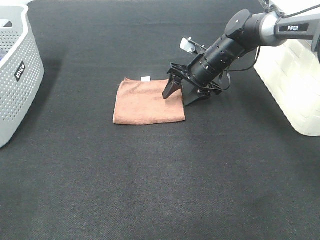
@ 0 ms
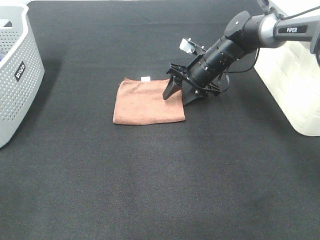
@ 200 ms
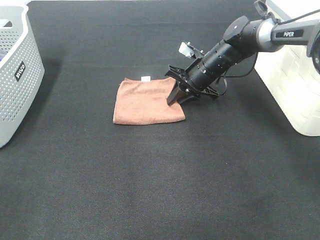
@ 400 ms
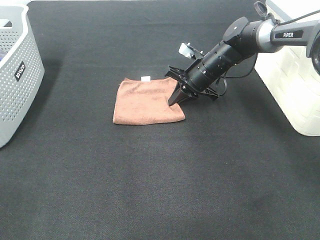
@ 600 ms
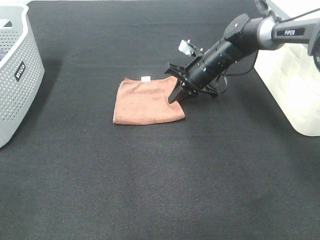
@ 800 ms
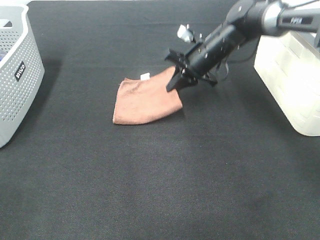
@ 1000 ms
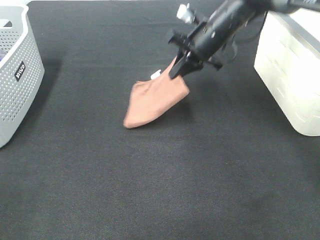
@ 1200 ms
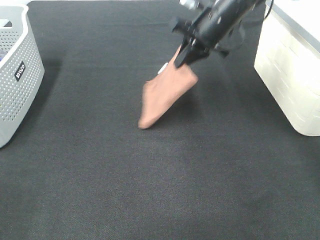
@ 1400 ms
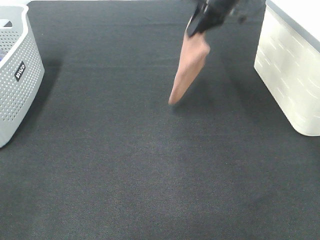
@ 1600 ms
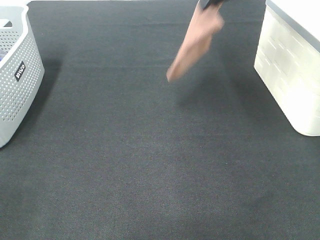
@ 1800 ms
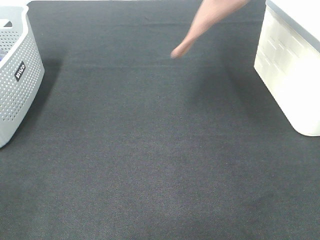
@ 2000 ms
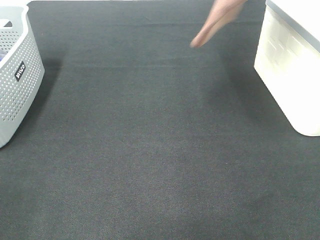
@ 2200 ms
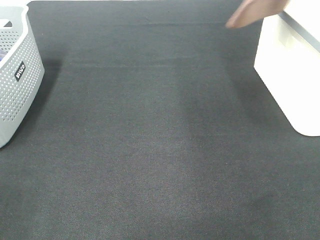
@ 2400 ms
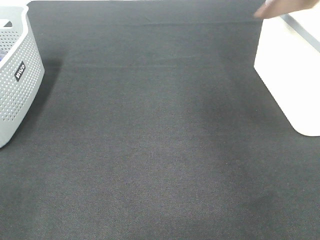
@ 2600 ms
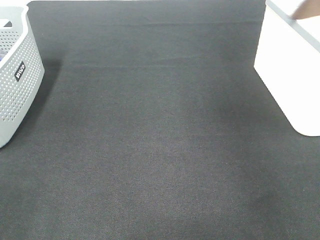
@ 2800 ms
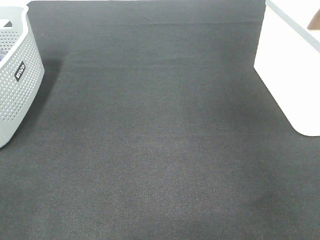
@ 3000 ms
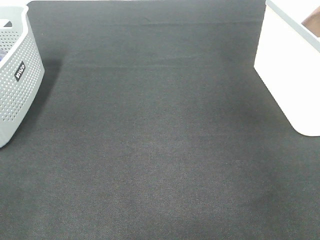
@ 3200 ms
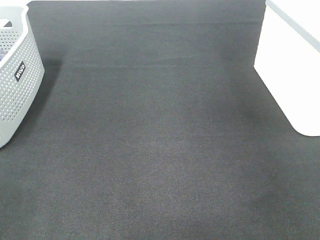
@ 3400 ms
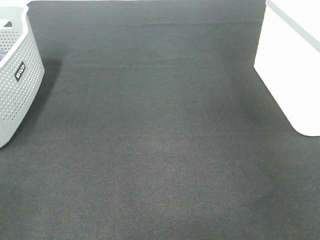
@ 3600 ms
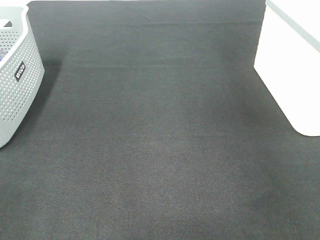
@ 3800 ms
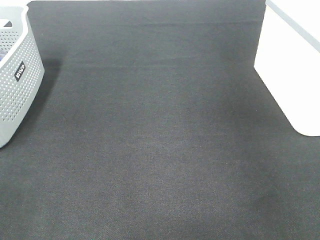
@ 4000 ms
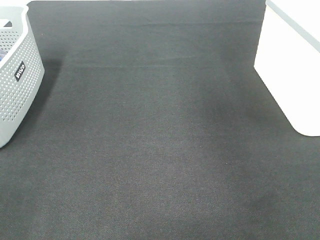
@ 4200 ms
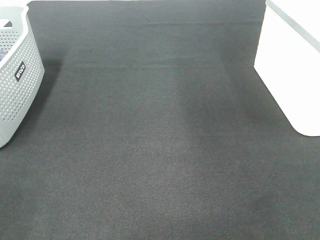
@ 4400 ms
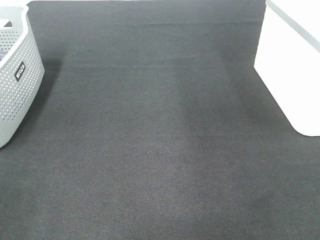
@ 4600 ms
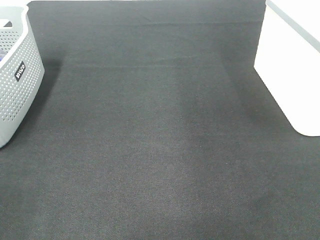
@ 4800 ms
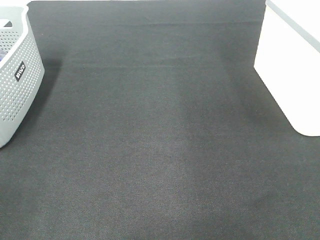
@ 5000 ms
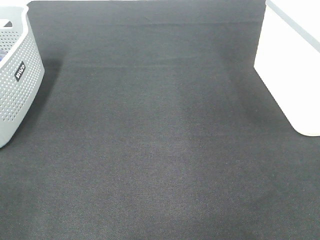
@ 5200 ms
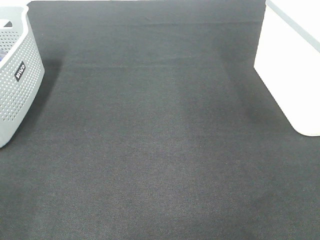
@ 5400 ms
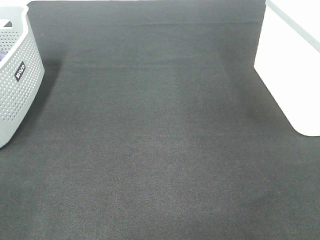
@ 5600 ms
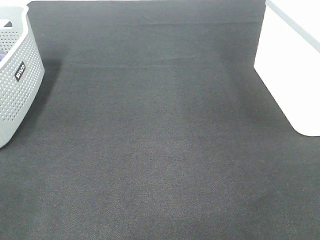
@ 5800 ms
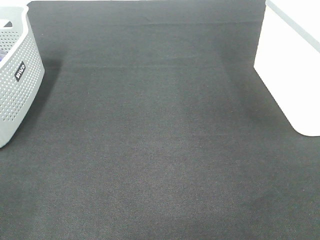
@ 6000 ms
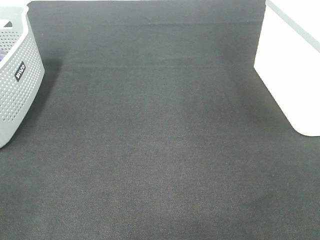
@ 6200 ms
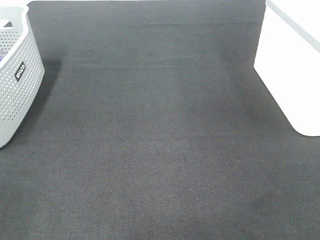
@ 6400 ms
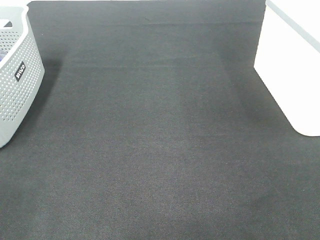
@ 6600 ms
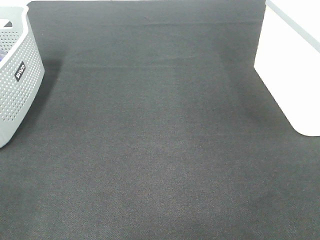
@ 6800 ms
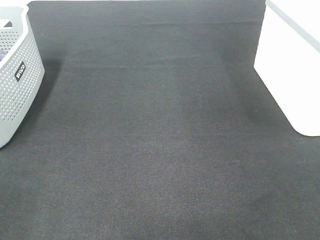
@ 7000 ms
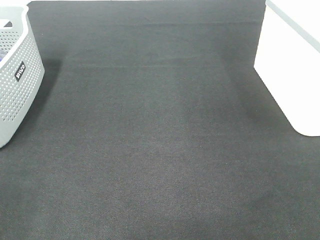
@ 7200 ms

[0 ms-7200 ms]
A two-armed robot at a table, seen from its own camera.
Step, 800 ms to 3800 ms: Right hand: place the brown towel in right basket.
0 ms to 1400 ms: The right gripper is displaced upward by about 10 cm, and closes.
1400 ms to 2800 ms: The right gripper heads to the right and upward, covering some 35 cm.

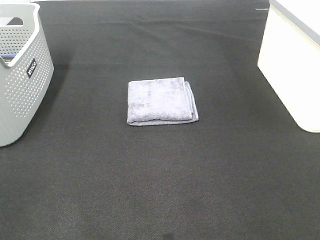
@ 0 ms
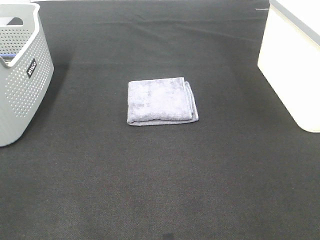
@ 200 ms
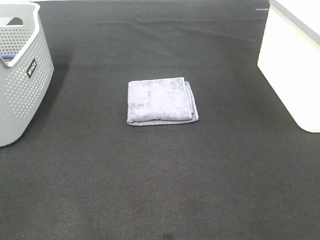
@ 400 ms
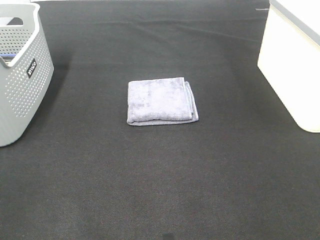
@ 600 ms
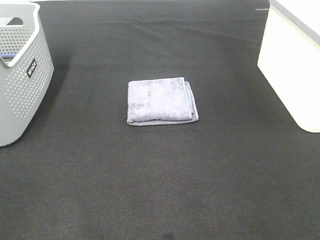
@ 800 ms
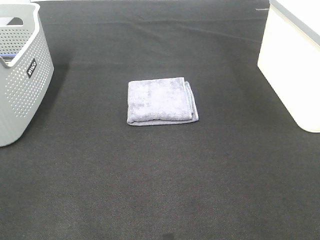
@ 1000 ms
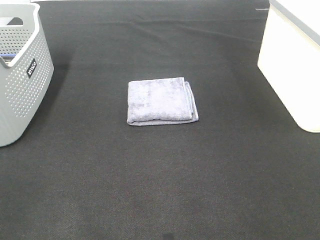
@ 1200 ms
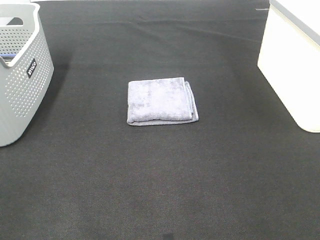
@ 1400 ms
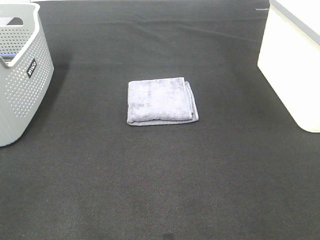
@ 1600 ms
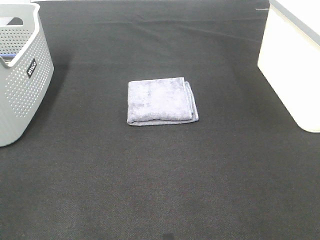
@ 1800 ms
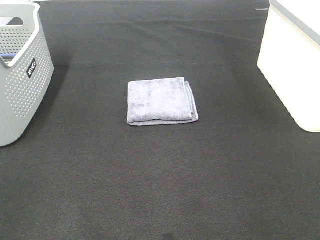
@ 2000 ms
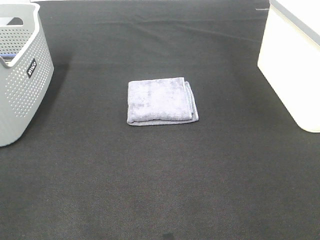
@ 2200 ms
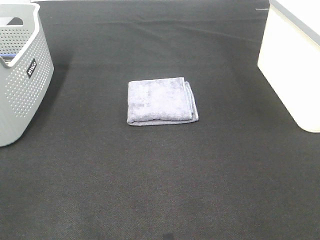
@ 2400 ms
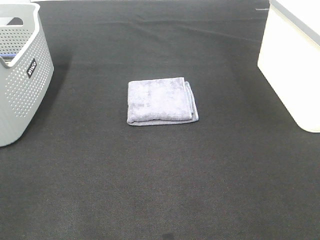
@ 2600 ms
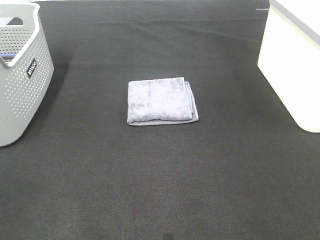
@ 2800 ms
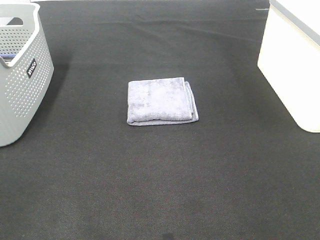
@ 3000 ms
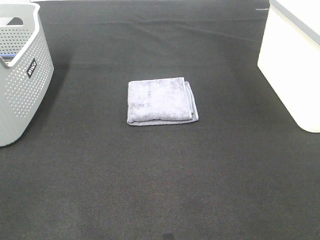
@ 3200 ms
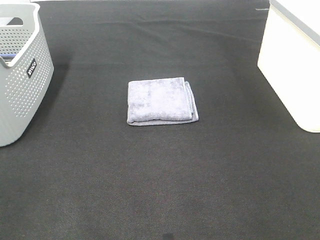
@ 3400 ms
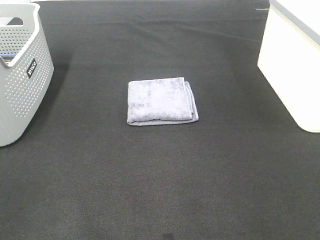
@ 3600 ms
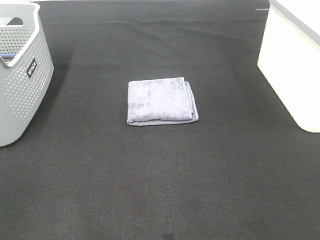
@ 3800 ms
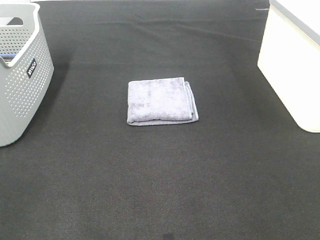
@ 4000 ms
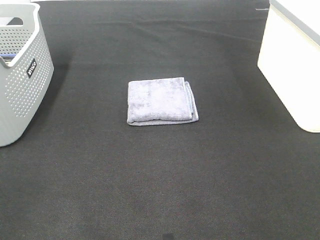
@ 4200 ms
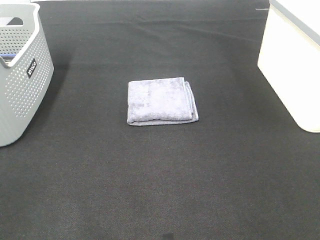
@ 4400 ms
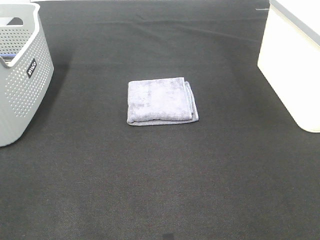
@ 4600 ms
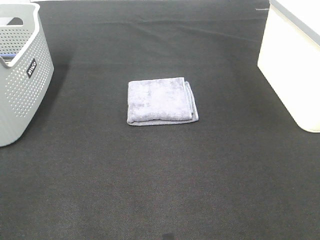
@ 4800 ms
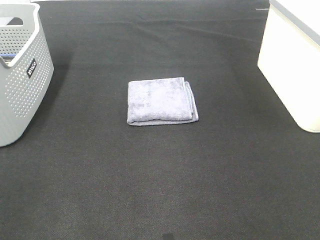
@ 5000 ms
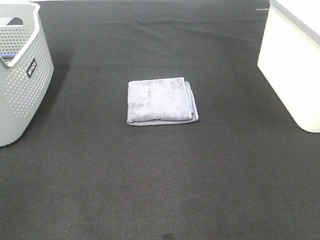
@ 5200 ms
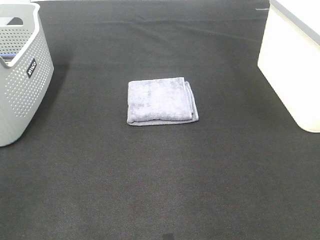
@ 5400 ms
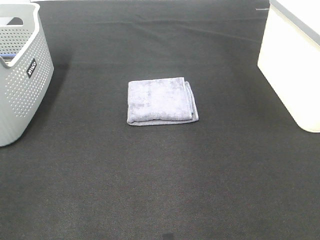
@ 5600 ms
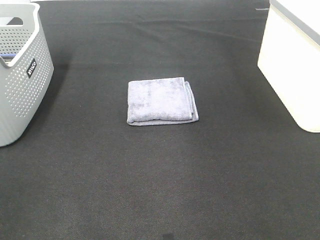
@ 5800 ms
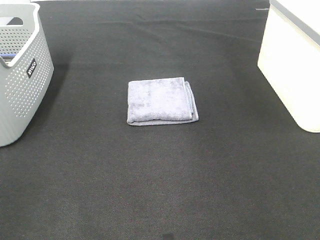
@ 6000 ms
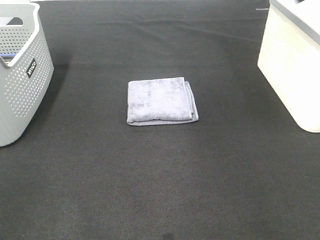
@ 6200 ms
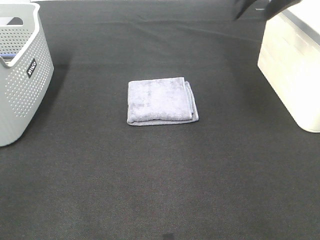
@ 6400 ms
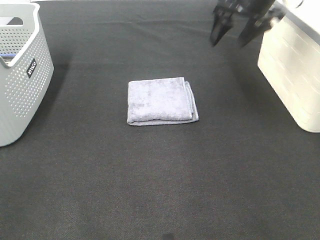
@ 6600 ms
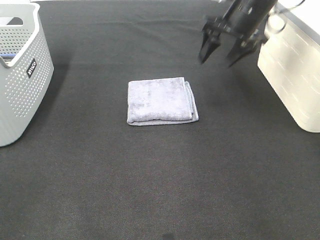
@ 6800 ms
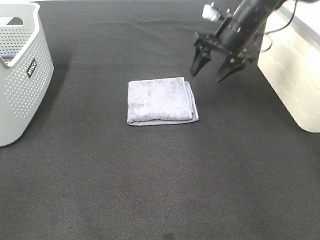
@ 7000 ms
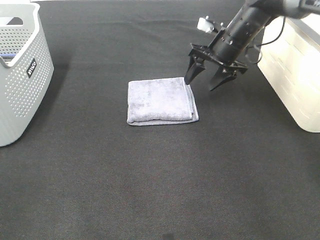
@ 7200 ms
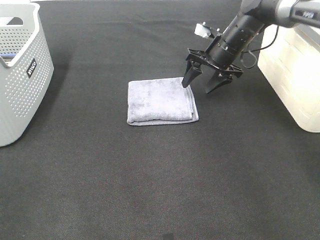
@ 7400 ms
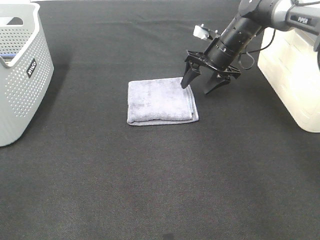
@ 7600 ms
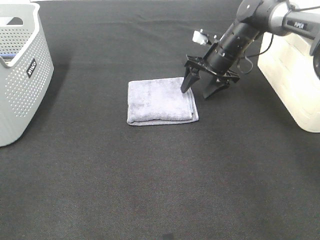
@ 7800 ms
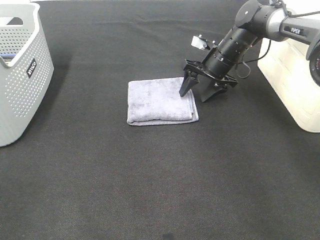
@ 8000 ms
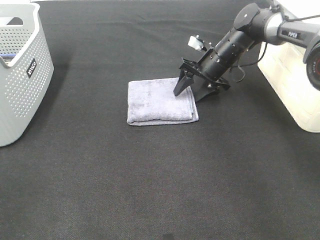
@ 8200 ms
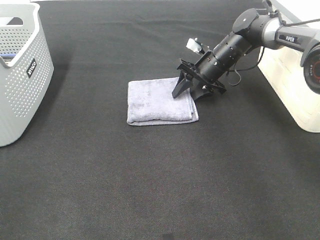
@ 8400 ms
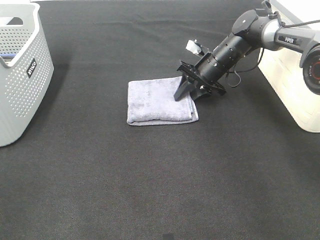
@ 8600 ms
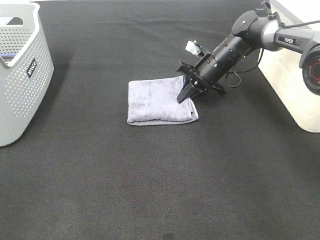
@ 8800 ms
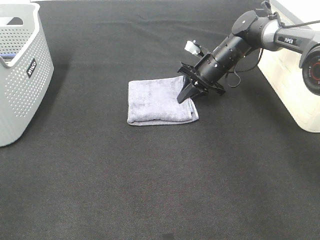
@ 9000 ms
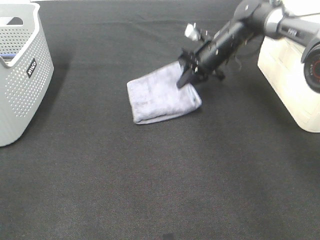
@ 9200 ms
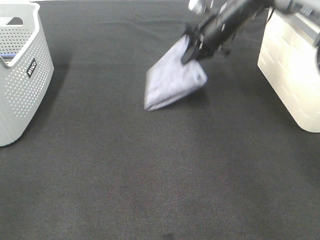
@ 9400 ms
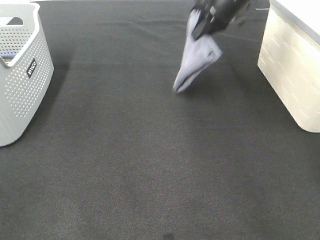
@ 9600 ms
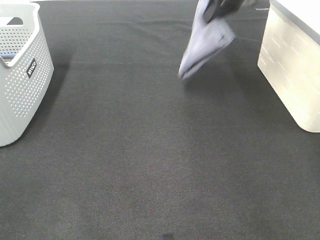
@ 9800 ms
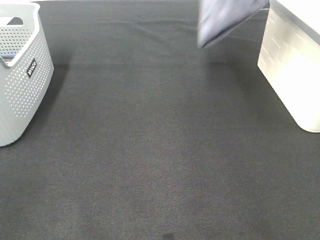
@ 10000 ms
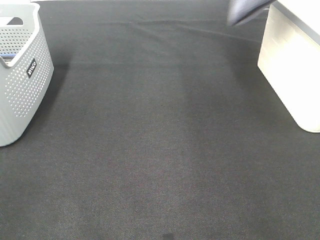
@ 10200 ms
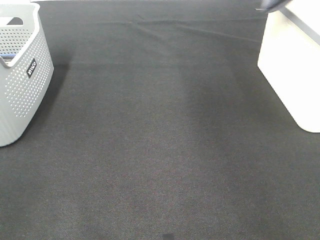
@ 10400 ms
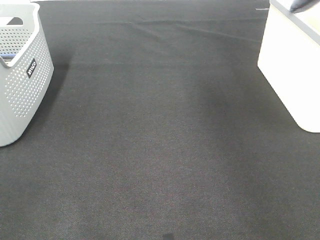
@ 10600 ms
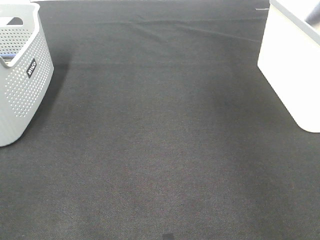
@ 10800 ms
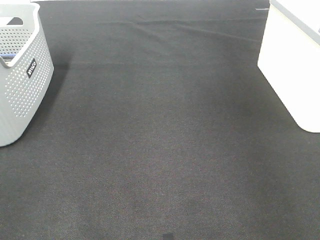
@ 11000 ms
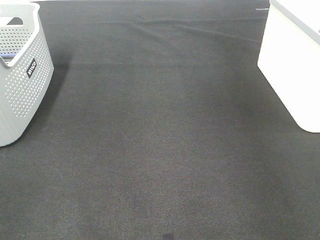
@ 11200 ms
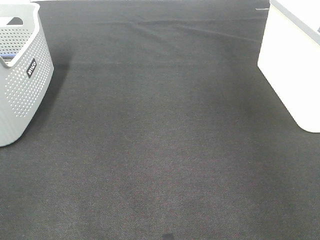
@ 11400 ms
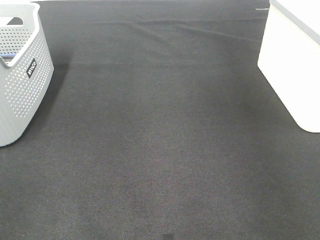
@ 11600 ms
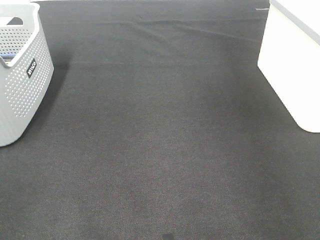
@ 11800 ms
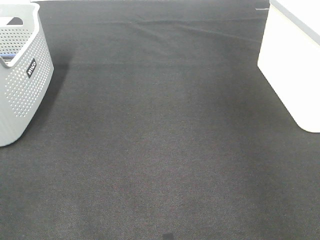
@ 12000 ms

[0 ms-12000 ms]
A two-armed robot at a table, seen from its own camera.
Step, 0 ms to 8600 ms: Right hand: grab the folded grey towel.
Step, 8800 ms to 11600 ms: Right hand: place the grey towel in right basket.
0 ms to 3000 ms: Neither gripper changes place.
6000 ms to 7600 ms: The right gripper shifts roughly 30 cm downward and to the left.
7600 ms to 9000 ms: The right gripper closes.
9000 ms to 10400 ms: The right gripper heads upward and to the right, covering approximately 40 cm.
10400 ms to 12000 ms: The right gripper is displaced downward and to the right by some 10 cm, and opens up.

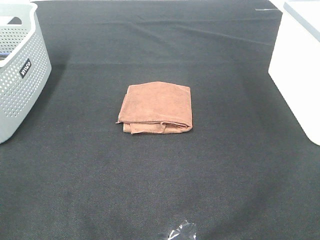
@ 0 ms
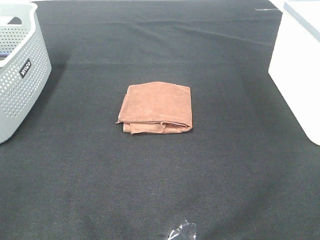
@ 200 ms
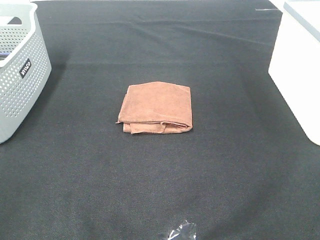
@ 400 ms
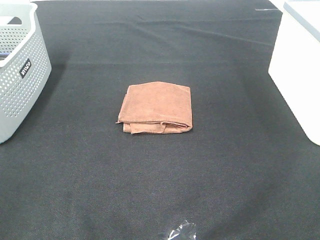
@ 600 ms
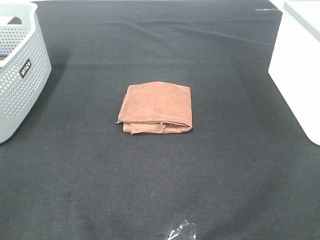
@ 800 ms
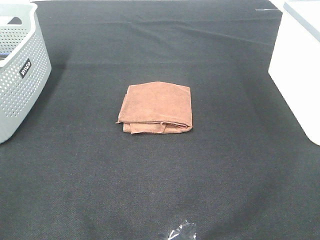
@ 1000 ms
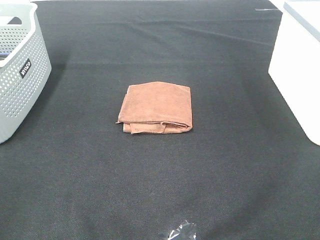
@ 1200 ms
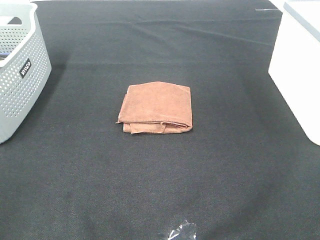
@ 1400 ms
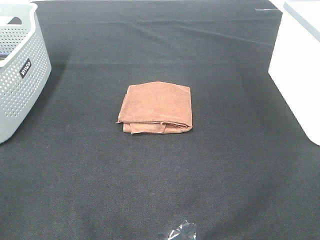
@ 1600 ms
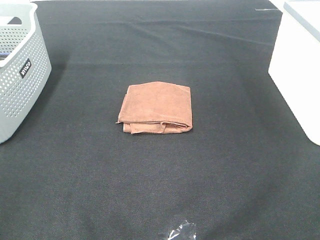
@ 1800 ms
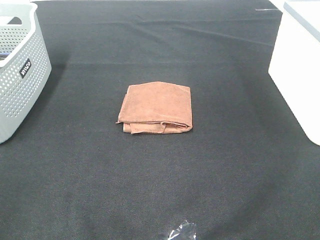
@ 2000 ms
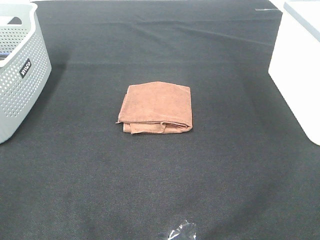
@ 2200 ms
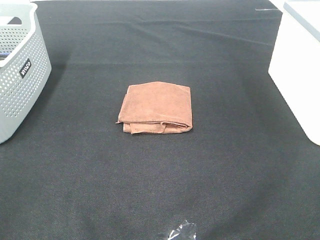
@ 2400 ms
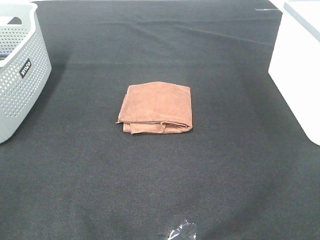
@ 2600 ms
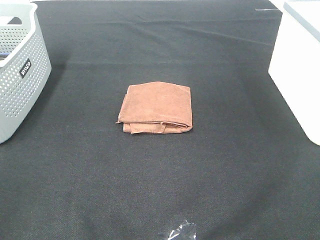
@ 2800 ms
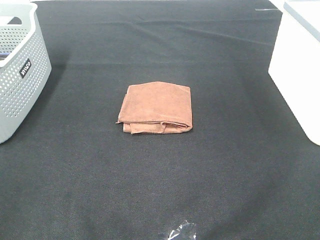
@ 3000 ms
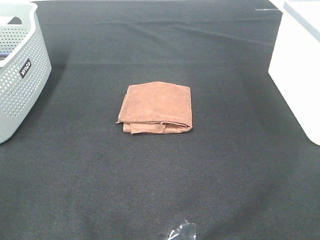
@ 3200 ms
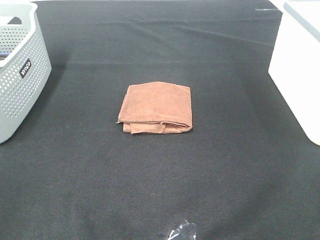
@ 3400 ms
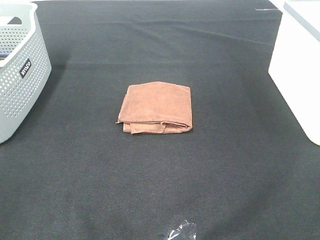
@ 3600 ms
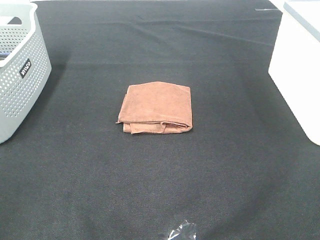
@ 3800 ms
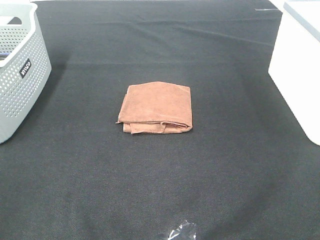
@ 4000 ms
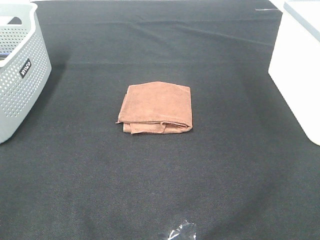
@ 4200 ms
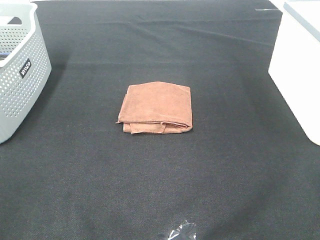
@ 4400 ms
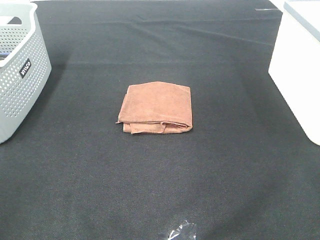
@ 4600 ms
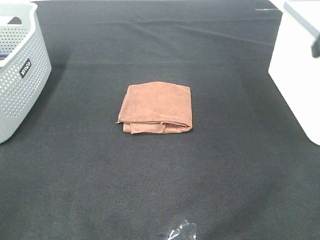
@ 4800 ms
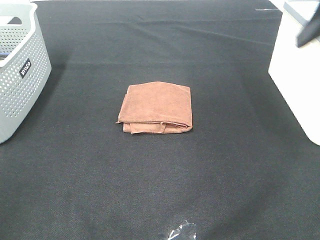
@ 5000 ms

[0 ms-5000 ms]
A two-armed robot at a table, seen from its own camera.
0 ms to 3400 ms: The two grippers keep their place.
3400 ms to 5000 ms: The right gripper shifts about 25 cm forward.
